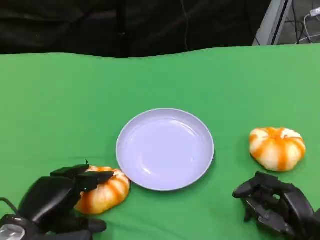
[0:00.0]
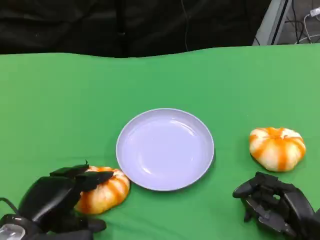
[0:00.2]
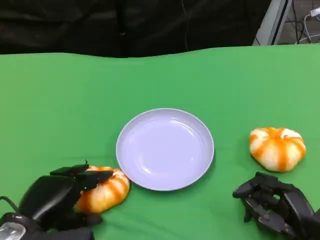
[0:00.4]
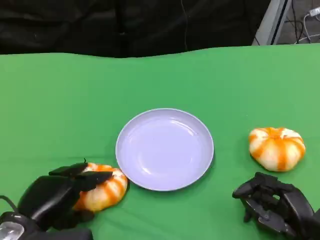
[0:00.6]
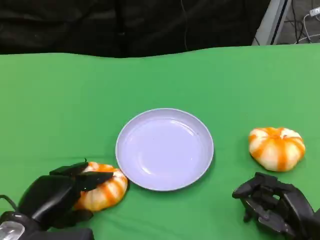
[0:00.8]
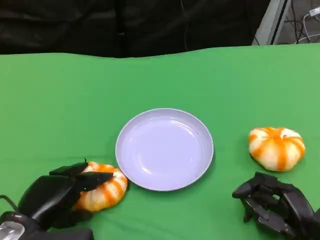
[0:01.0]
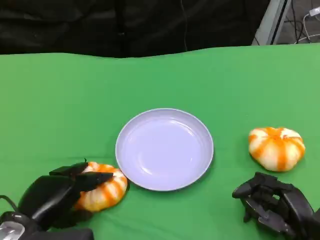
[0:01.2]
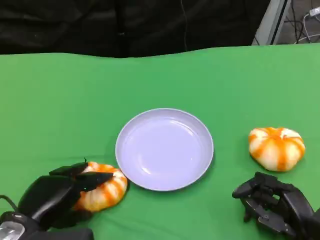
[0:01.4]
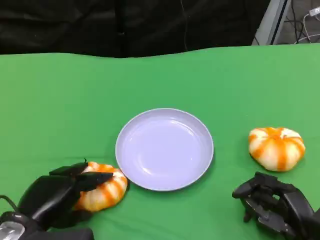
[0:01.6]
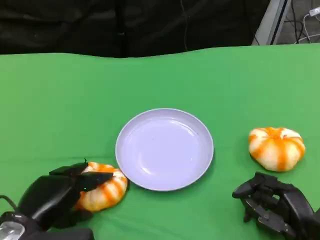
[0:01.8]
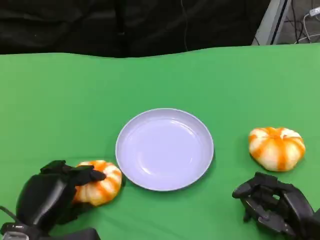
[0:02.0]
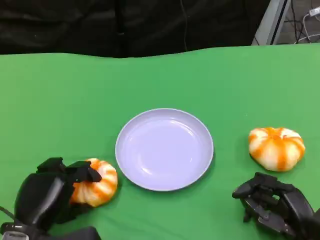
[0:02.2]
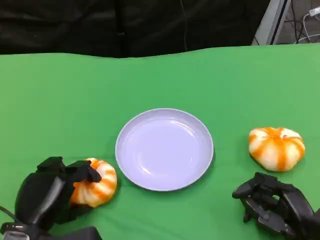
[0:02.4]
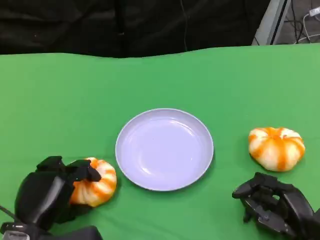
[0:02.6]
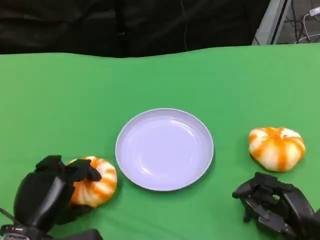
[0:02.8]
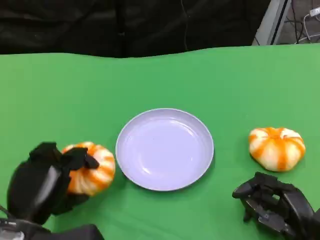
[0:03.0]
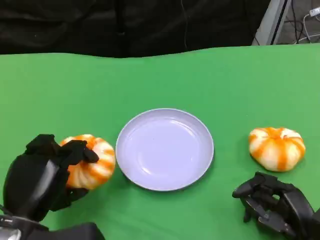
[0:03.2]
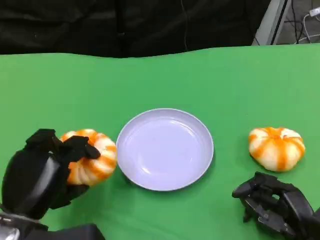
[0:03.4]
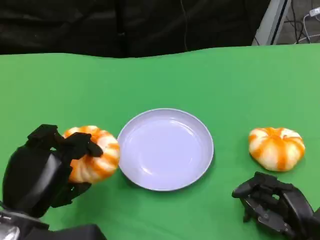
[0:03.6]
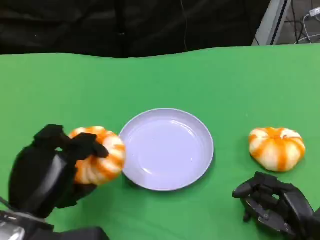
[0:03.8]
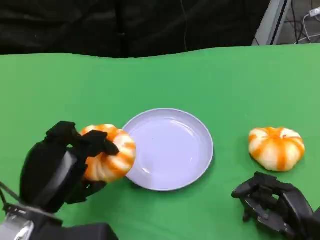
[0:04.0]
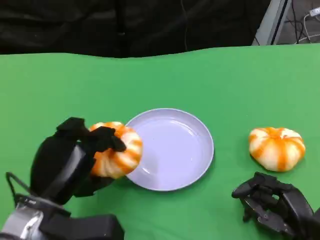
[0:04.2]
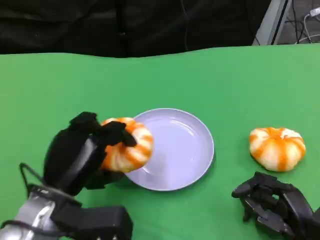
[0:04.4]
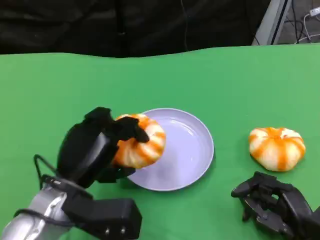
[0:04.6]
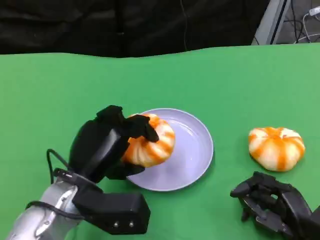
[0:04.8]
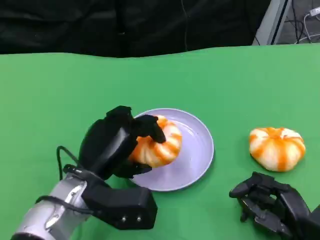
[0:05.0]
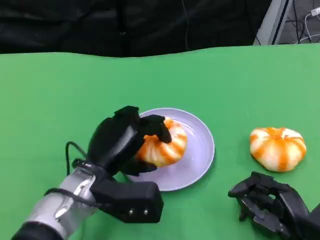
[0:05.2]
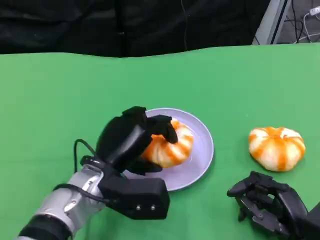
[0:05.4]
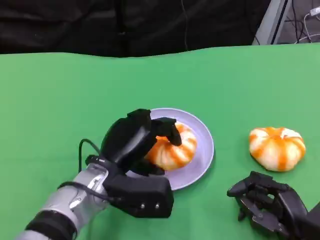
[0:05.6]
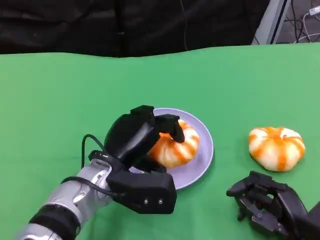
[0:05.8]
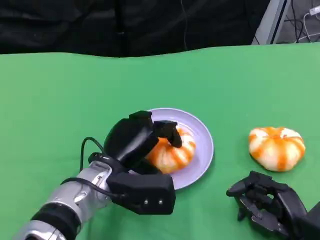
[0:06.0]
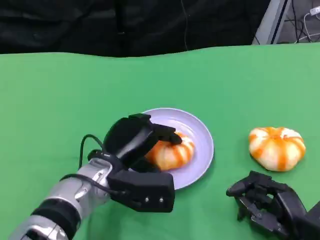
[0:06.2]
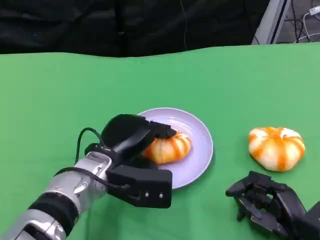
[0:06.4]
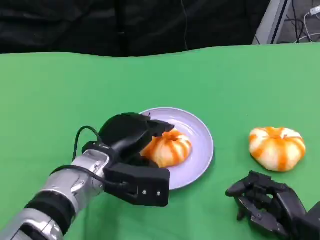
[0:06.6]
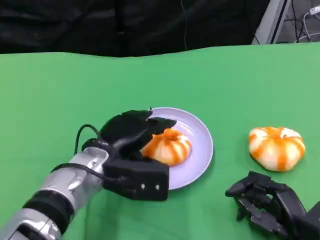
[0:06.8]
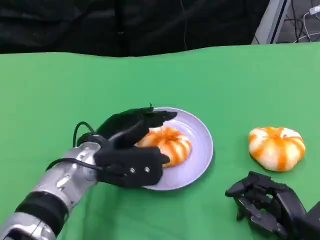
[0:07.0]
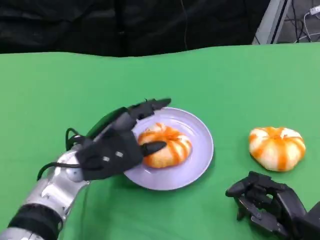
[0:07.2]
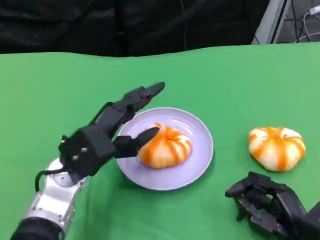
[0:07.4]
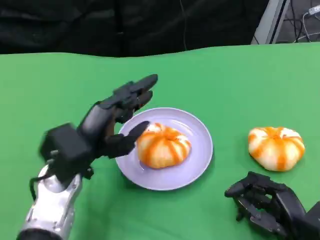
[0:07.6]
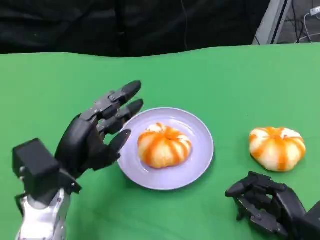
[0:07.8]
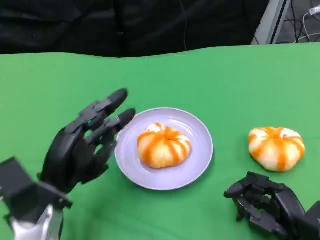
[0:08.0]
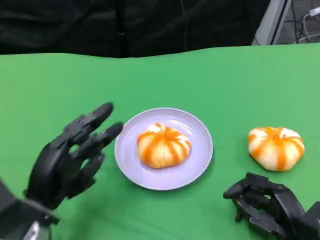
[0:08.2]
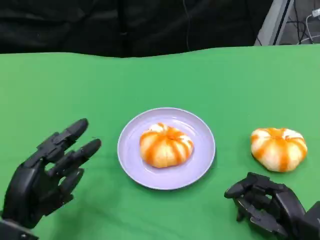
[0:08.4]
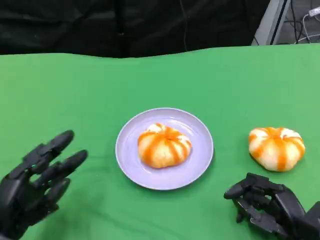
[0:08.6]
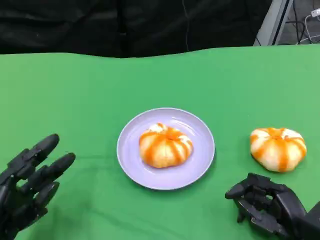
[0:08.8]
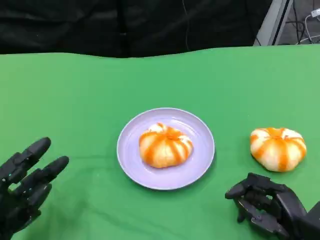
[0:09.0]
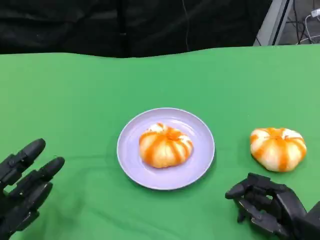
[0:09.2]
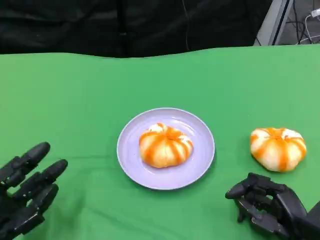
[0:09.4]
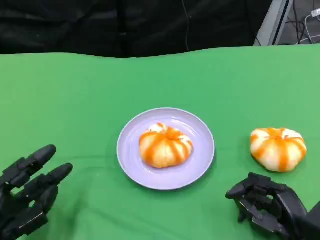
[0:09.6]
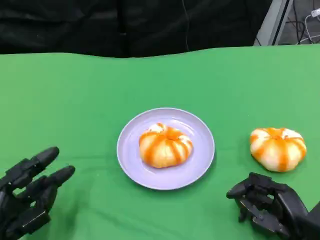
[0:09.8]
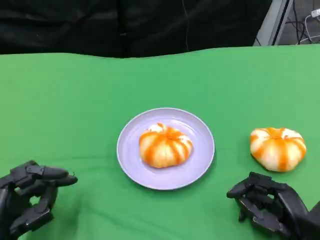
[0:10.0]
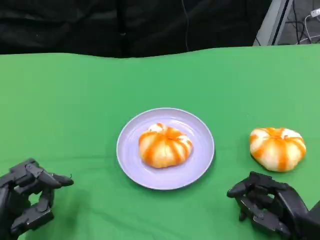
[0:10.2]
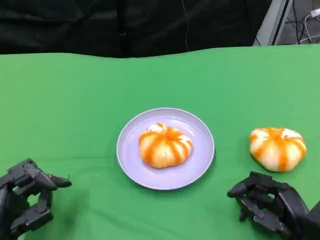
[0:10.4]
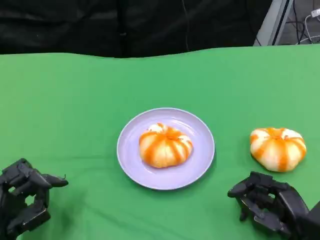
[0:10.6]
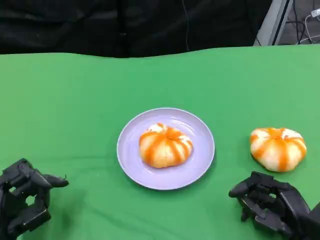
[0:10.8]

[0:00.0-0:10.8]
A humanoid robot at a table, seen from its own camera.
Task of the whole recording: Grasp the bread from the table and place it into the plate.
0:00.0 to 0:01.6: Both hands stay about where they are.
0:03.0 to 0:04.6: The left hand heads to the right and forward, covering roughly 10 cm.
0:04.6 to 0:06.2: The left hand is displaced to the right by approximately 5 cm.
0:06.2 to 0:07.8: The left hand goes some 5 cm to the left.
0:07.8 to 0:09.2: The left hand goes about 15 cm to the left, backward and downward.
0:09.2 to 0:10.8: There are only small adjustments of the hands.

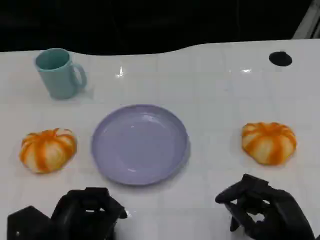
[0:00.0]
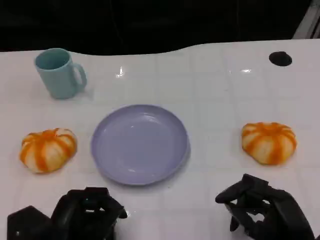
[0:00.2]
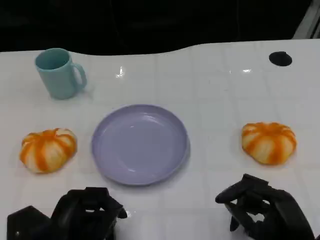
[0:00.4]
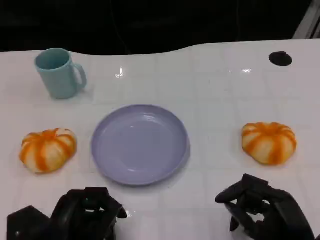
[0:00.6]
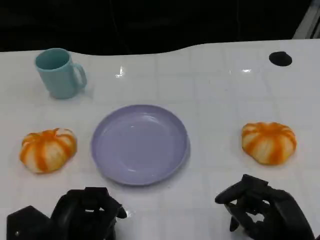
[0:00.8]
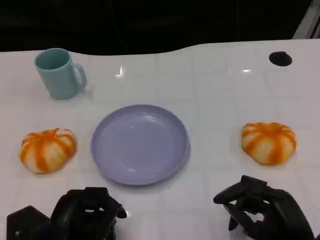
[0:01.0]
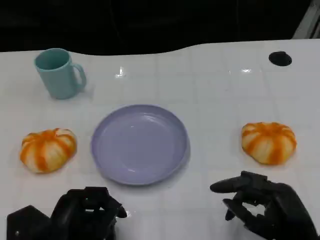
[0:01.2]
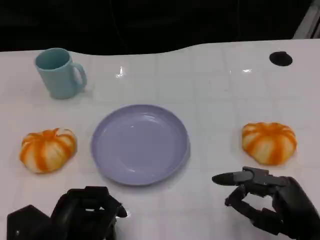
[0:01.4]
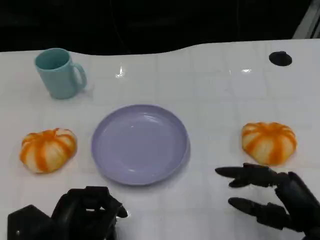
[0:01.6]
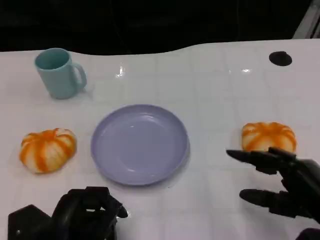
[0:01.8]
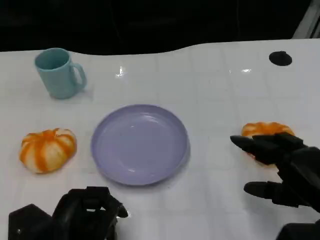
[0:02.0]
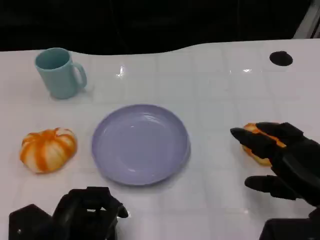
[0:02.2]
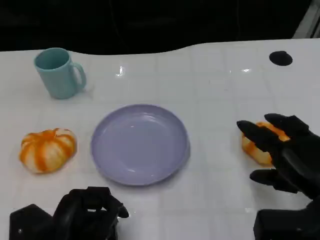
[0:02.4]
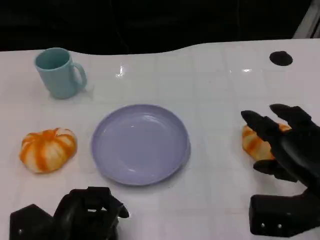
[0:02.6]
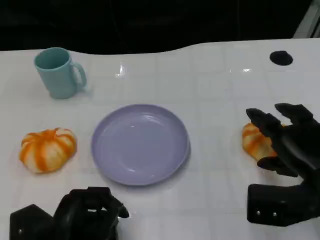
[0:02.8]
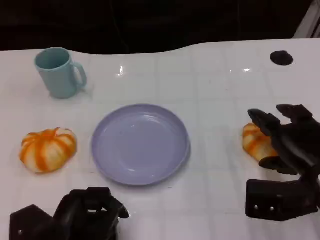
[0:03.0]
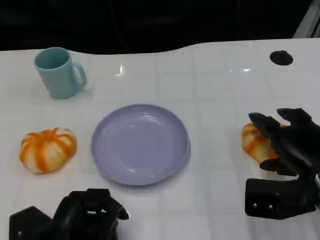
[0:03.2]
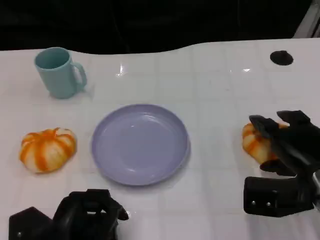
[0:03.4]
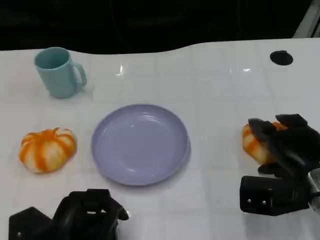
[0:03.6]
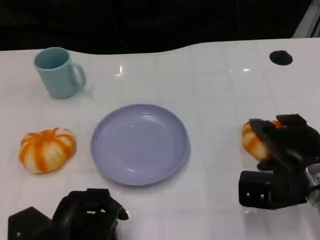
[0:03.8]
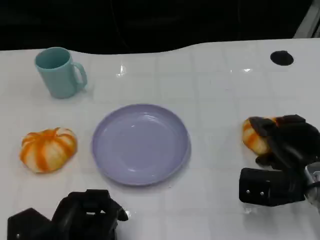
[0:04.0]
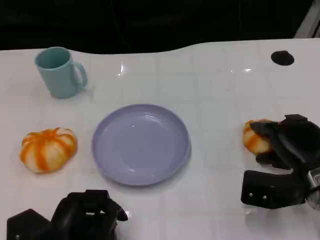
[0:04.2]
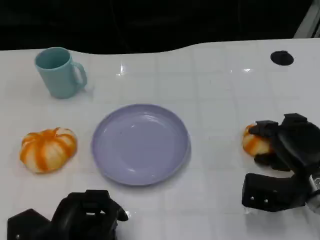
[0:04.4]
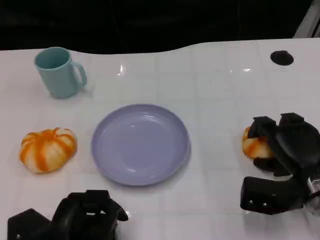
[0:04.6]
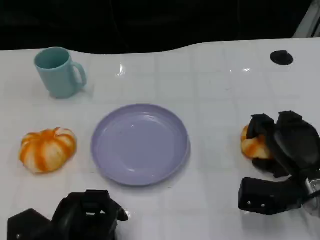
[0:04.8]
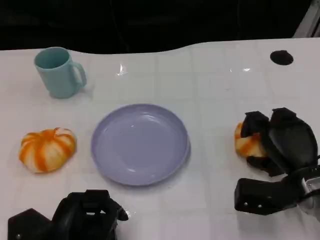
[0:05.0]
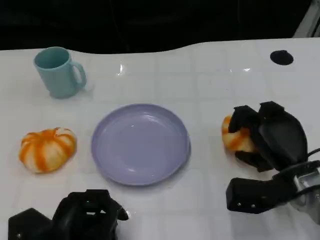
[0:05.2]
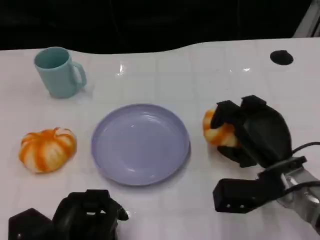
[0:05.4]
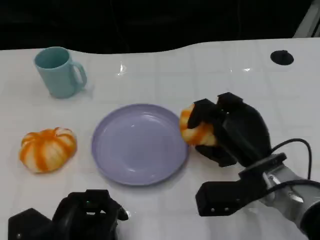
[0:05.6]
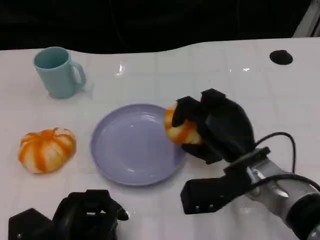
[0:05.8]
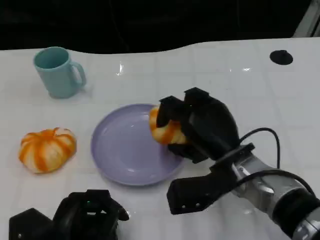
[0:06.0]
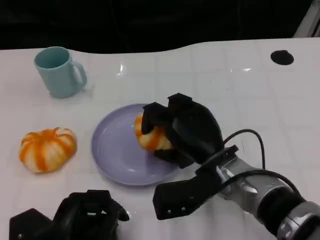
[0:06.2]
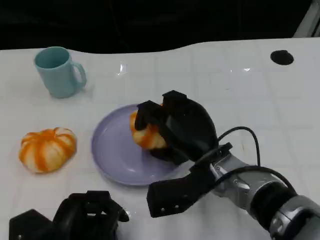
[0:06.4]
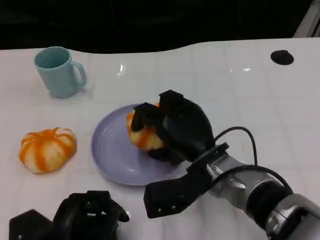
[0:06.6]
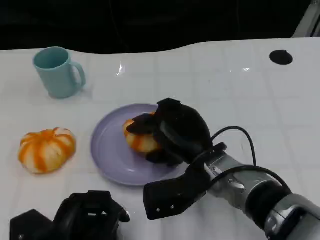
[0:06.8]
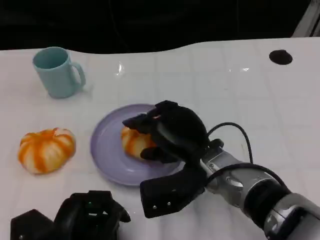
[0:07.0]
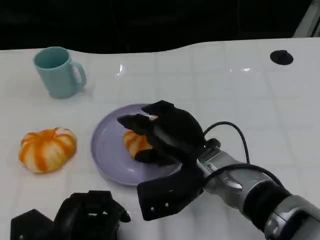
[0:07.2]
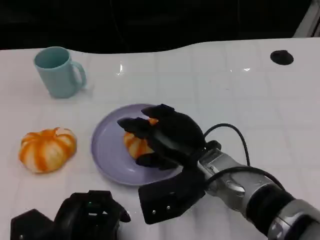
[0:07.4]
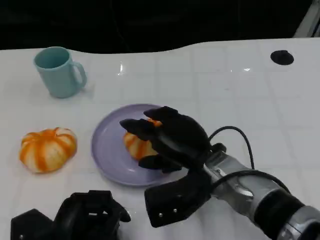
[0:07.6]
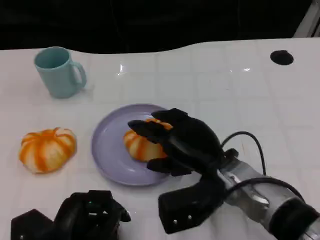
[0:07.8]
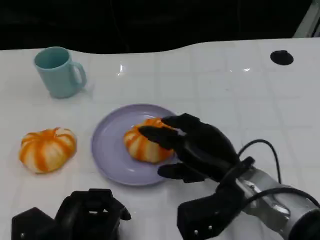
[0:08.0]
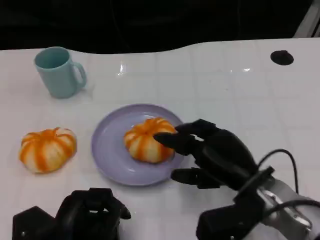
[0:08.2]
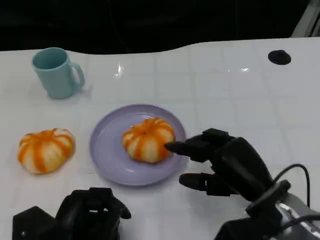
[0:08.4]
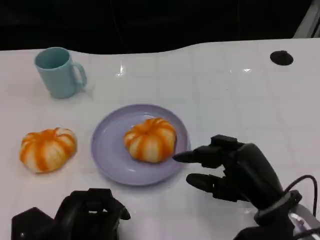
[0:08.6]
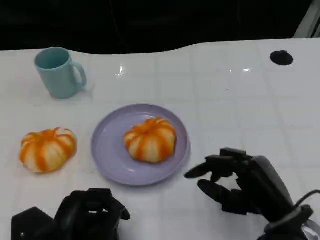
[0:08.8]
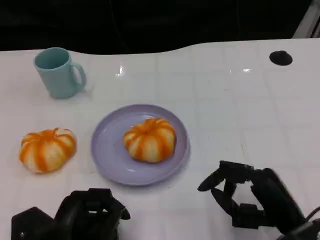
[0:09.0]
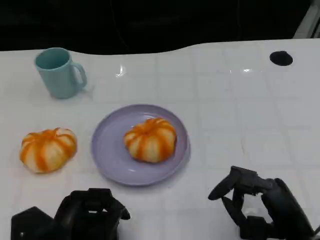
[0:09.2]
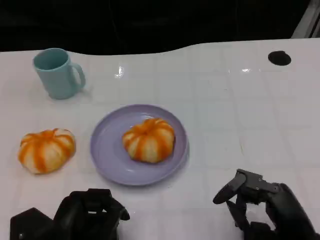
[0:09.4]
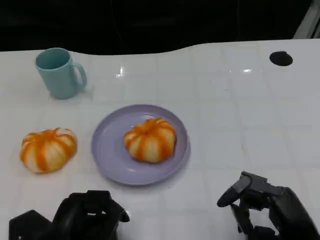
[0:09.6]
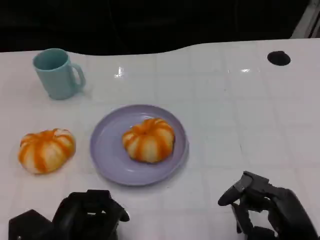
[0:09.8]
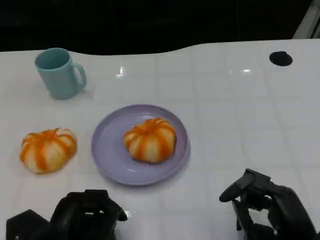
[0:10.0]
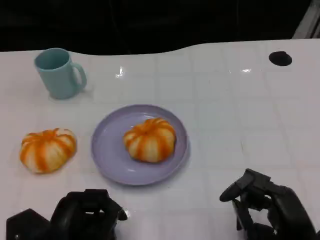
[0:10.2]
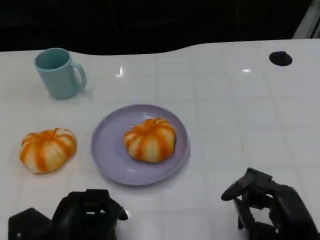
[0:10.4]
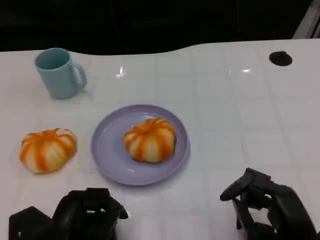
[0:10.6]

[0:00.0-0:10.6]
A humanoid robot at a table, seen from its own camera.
Task of the whole recording: Grasp the bread from the table and place it into the plate.
0:01.6 to 0:03.0: The right hand travels forward by approximately 5 cm.
0:03.0 to 0:04.6: The right hand moves approximately 5 cm.
0:04.6 to 0:06.0: The right hand is displaced to the left by roughly 15 cm.
0:07.6 to 0:09.0: The right hand travels to the right and backward by about 15 cm.

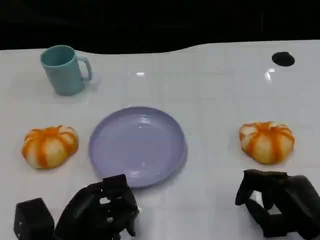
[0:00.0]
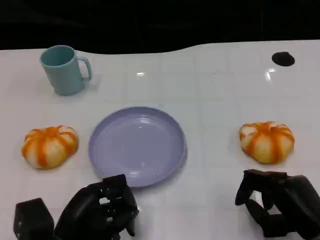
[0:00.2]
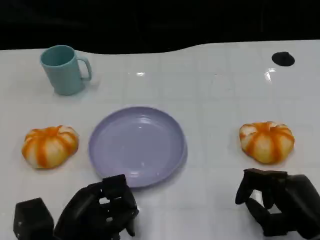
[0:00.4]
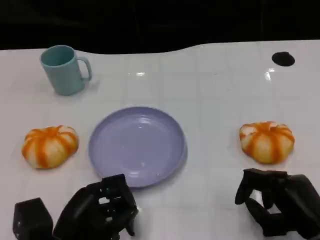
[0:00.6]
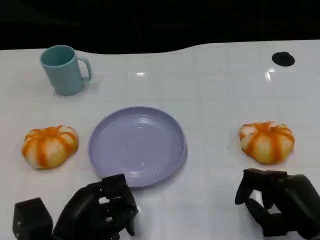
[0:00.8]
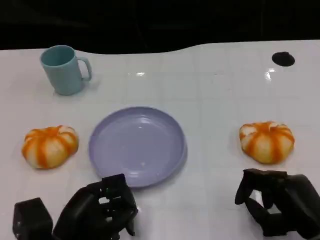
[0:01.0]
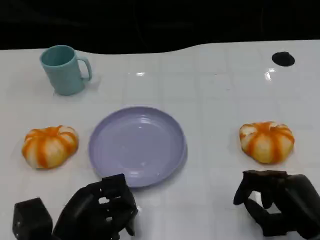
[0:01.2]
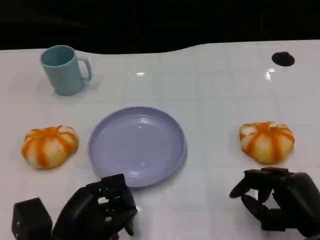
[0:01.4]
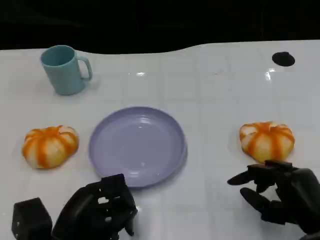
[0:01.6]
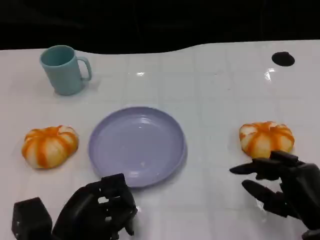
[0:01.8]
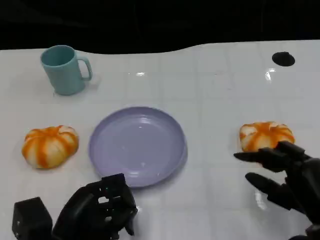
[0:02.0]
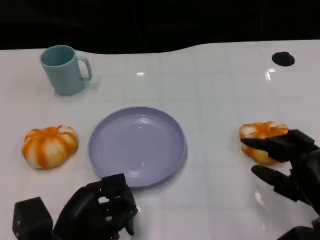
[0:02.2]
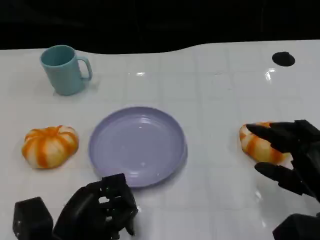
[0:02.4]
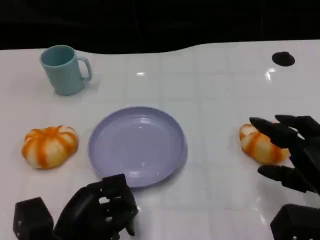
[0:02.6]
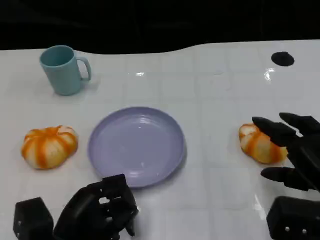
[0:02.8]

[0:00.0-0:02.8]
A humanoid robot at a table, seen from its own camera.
Task of the whole recording: Grasp the bread from the table and place it into the plate.
0:00.0 to 0:01.4: Neither hand changes place.
0:01.4 to 0:02.8: The right hand goes approximately 5 cm upward.
